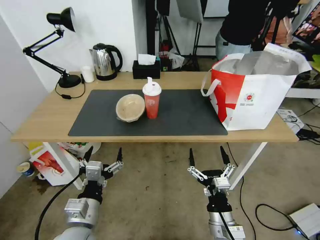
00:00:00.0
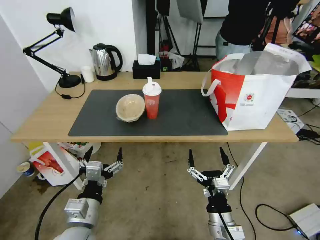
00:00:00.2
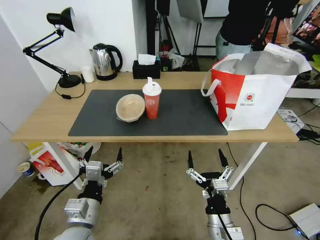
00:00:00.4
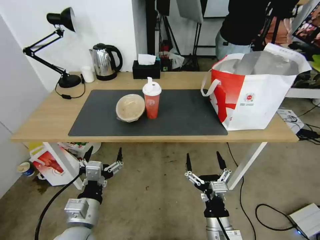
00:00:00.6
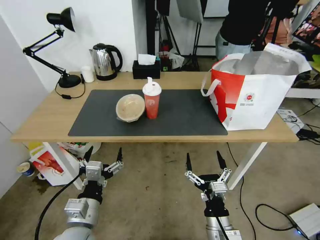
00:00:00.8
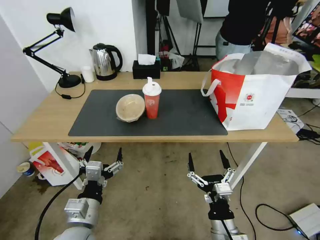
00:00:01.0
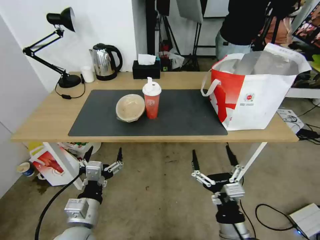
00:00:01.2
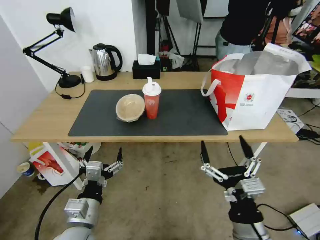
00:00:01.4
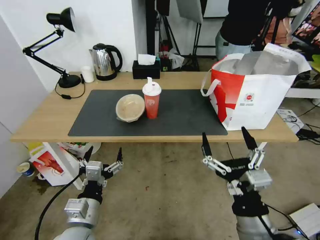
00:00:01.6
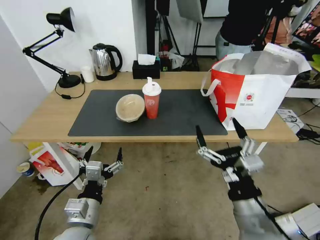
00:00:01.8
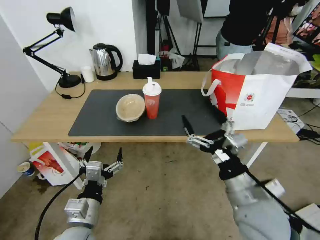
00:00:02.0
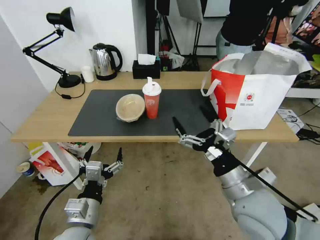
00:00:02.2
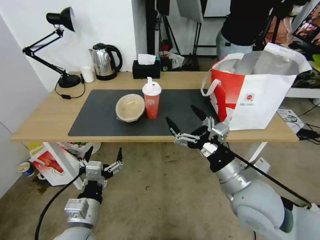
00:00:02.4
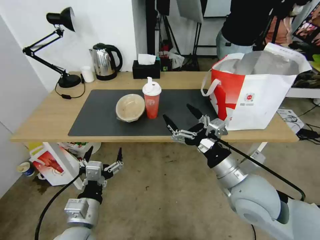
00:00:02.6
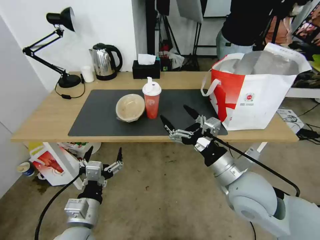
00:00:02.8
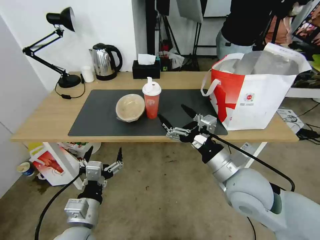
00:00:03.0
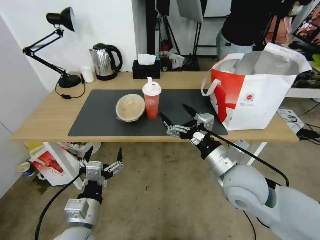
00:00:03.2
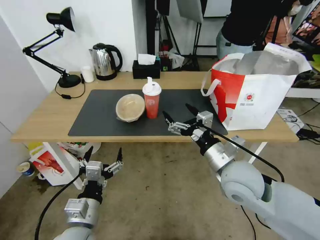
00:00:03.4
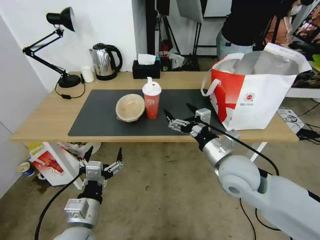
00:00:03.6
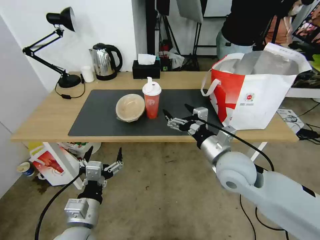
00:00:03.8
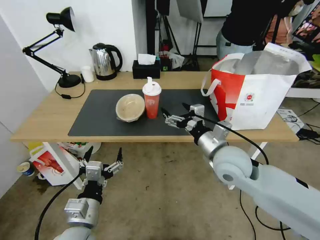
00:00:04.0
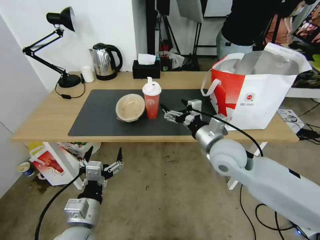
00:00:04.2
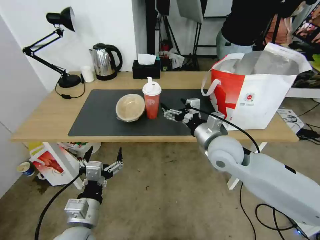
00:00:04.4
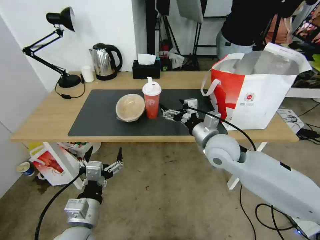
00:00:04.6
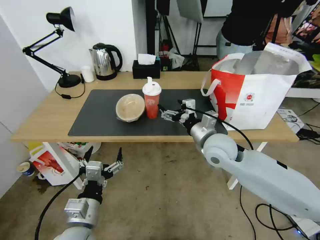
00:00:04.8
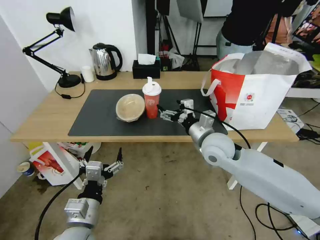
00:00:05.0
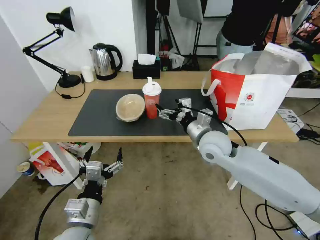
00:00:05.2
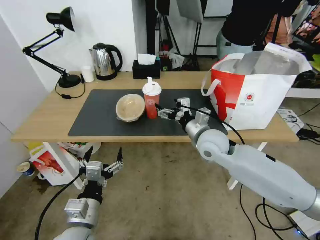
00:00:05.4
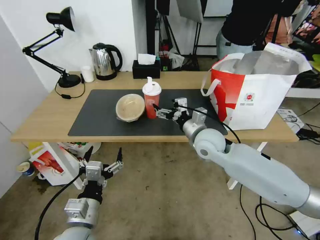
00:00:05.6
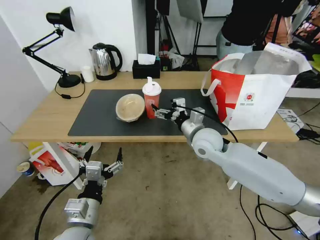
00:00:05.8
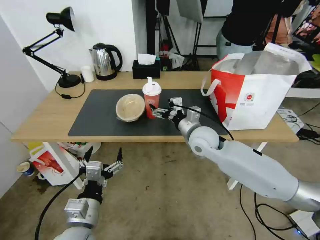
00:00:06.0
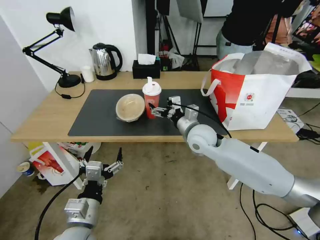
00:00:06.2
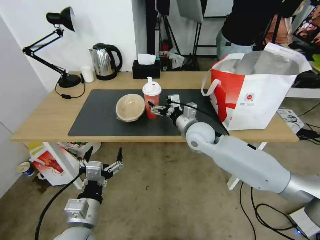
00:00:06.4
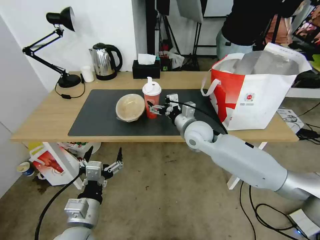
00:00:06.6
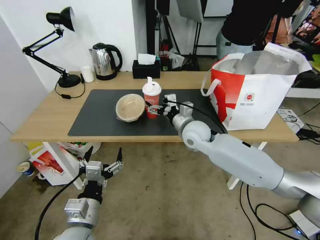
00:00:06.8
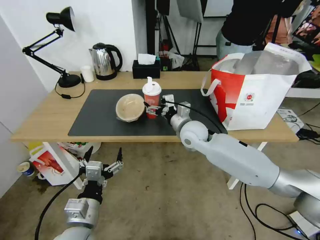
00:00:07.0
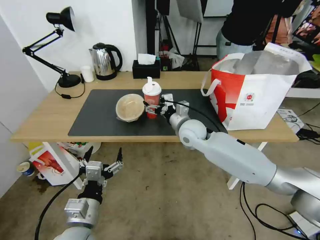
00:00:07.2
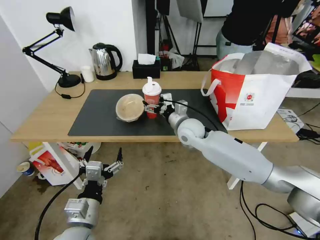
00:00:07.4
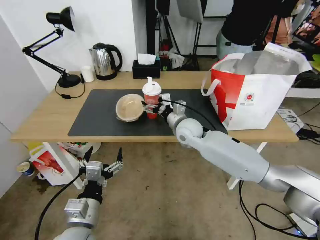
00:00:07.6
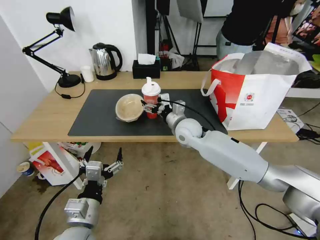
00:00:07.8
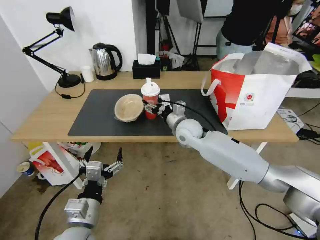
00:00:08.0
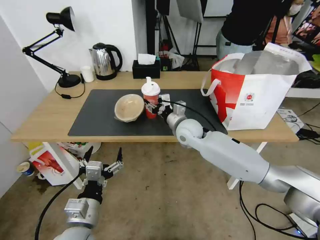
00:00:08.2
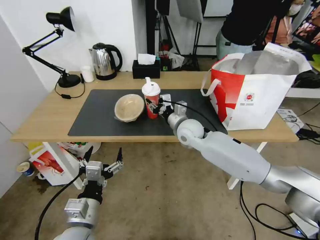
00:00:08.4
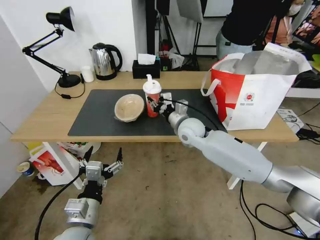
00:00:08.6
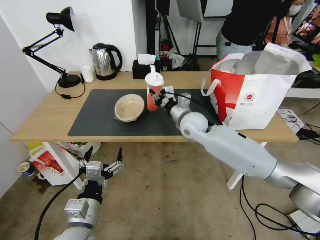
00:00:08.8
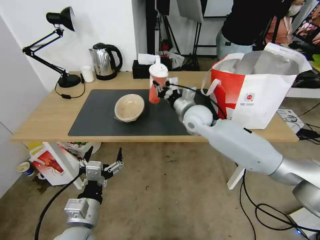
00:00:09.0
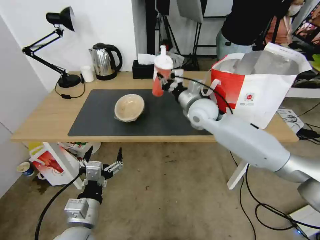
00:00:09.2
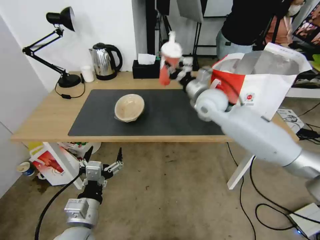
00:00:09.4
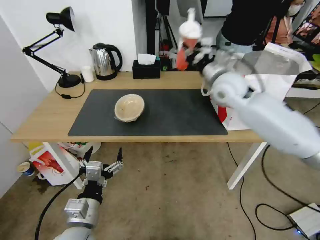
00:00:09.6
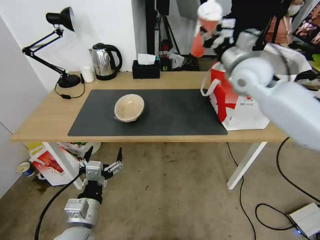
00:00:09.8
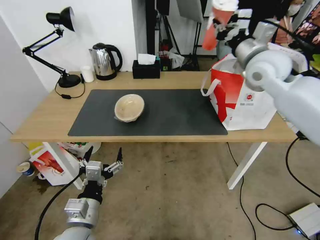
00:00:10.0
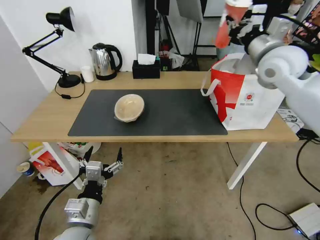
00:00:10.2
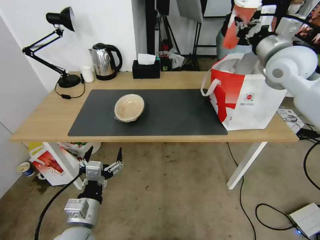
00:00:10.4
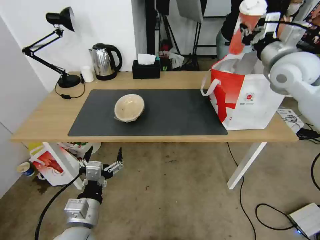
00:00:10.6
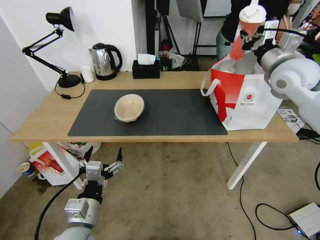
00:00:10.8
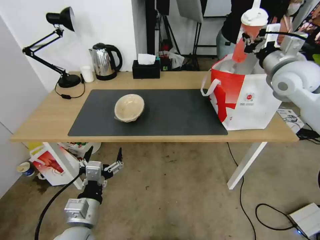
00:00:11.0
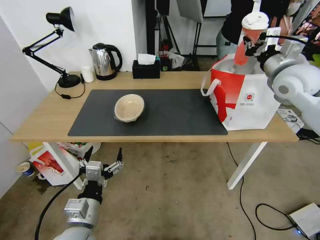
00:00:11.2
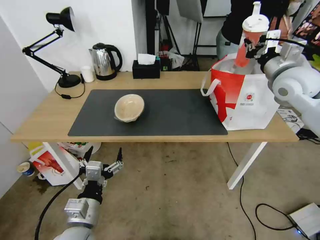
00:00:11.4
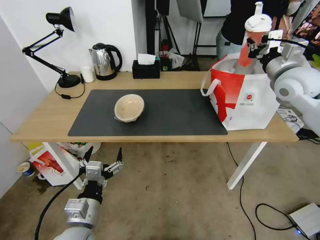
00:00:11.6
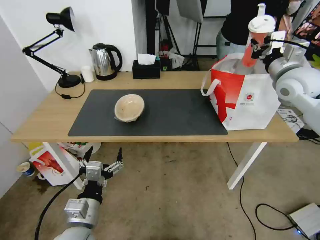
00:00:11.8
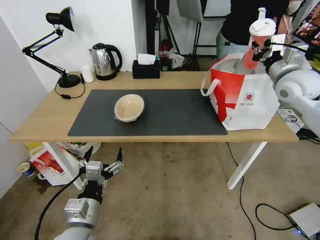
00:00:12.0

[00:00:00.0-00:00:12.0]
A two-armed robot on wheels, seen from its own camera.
Task of the whole recording: Pick up the trash from the table and place it into the takeout bag.
00:00:00.0 to 00:00:01.6: The right gripper travels upward by roughly 10 cm.
00:00:01.6 to 00:00:03.0: The right gripper is displaced forward by approximately 15 cm.
00:00:03.0 to 00:00:04.4: The right gripper heads forward, covering about 10 cm.
00:00:04.4 to 00:00:06.0: The right gripper shifts some 5 cm forward.
00:00:06.0 to 00:00:07.6: The right gripper travels forward by about 5 cm.
00:00:07.6 to 00:00:09.0: The right gripper is displaced upward by some 5 cm, and closes its fingers.
00:00:09.0 to 00:00:10.4: The right gripper shifts some 30 cm upward and to the right.
00:00:10.4 to 00:00:12.0: The right gripper shifts approximately 10 cm downward and to the right.

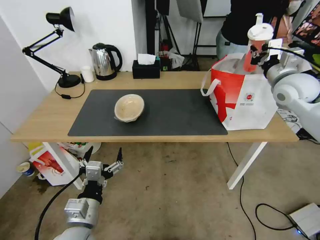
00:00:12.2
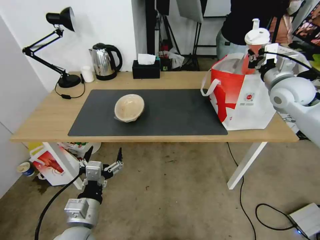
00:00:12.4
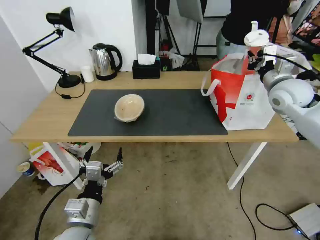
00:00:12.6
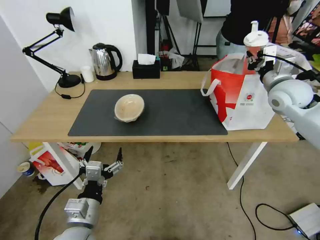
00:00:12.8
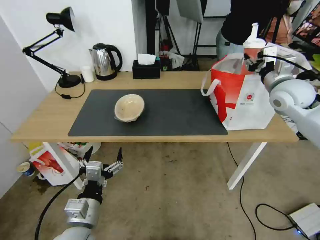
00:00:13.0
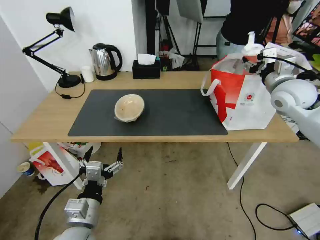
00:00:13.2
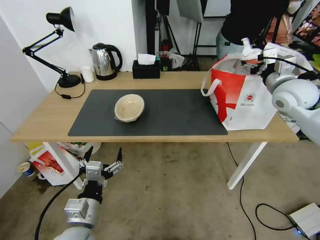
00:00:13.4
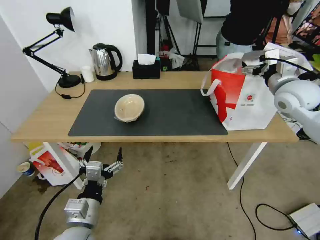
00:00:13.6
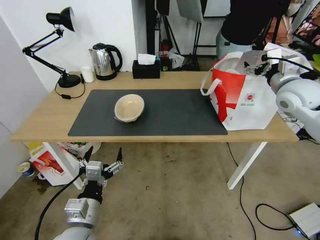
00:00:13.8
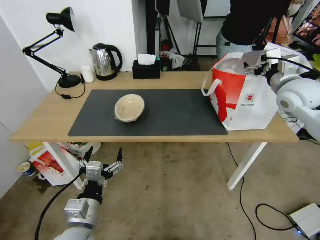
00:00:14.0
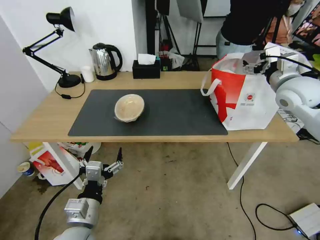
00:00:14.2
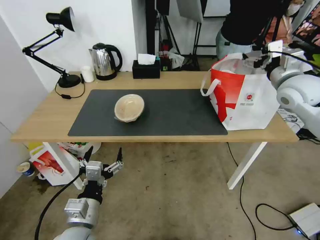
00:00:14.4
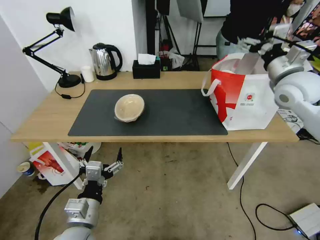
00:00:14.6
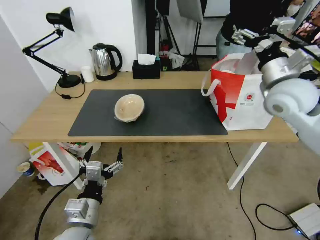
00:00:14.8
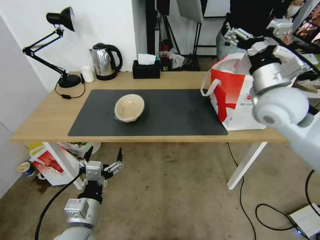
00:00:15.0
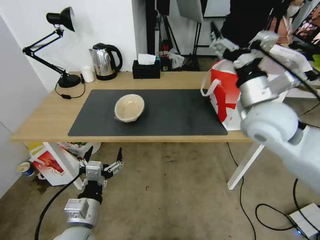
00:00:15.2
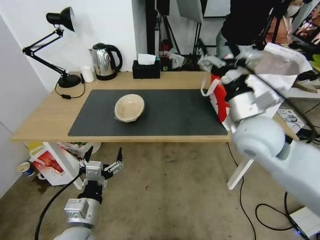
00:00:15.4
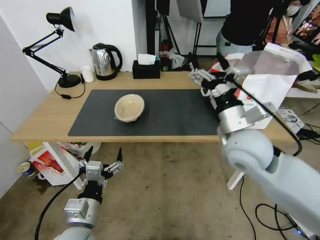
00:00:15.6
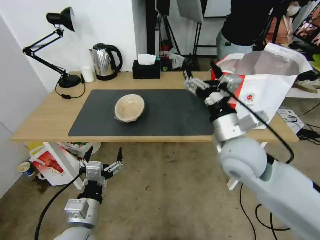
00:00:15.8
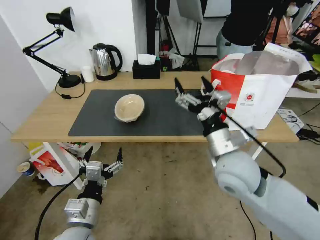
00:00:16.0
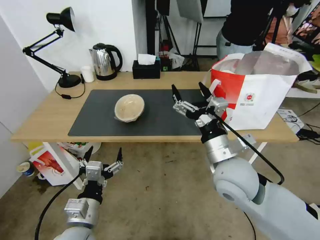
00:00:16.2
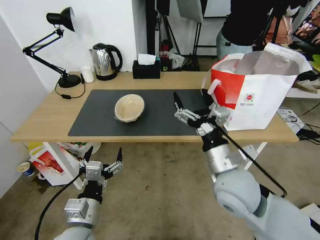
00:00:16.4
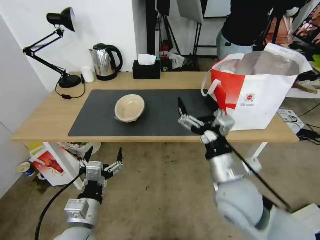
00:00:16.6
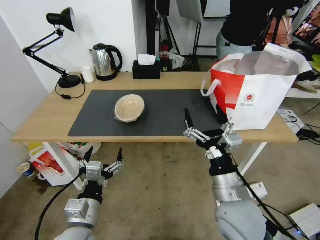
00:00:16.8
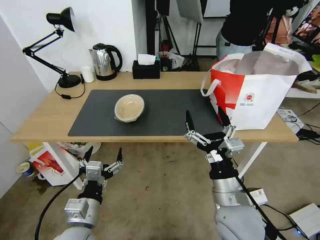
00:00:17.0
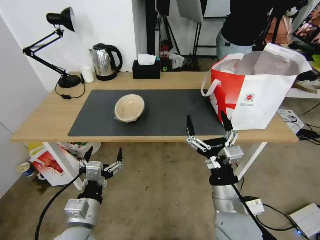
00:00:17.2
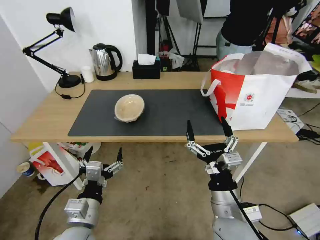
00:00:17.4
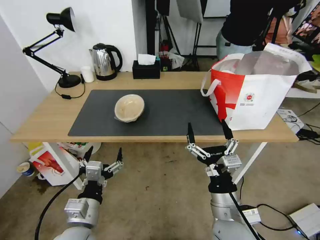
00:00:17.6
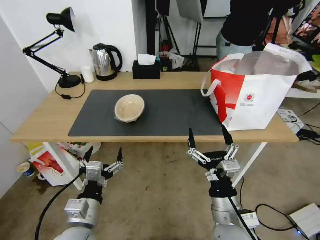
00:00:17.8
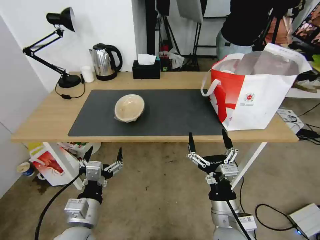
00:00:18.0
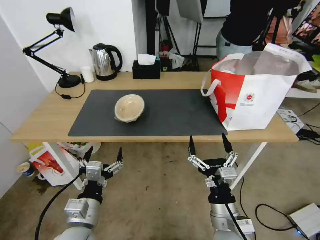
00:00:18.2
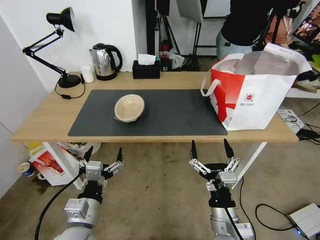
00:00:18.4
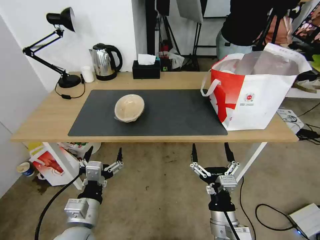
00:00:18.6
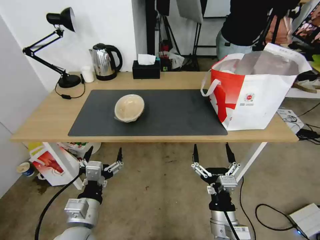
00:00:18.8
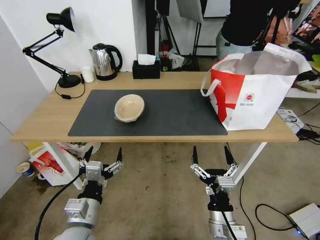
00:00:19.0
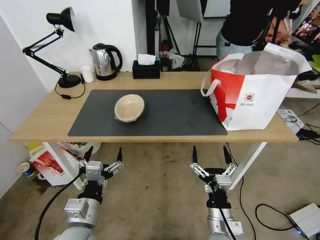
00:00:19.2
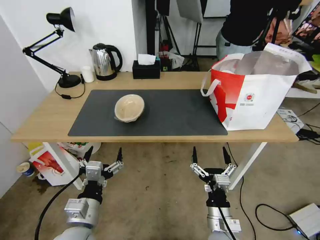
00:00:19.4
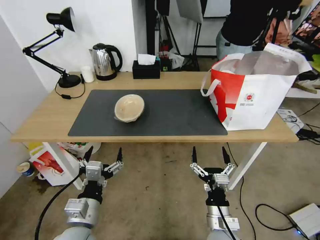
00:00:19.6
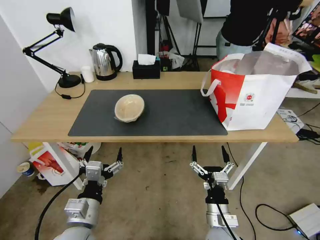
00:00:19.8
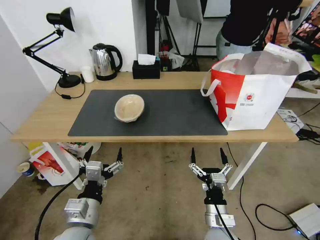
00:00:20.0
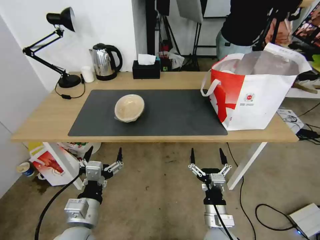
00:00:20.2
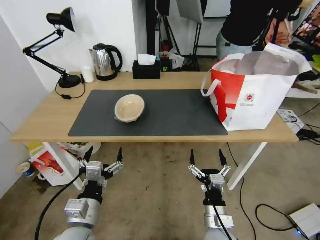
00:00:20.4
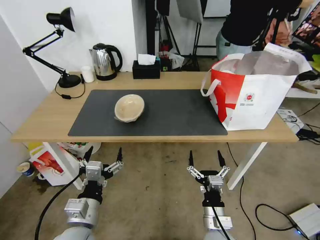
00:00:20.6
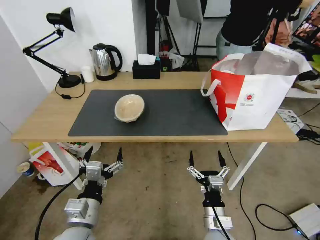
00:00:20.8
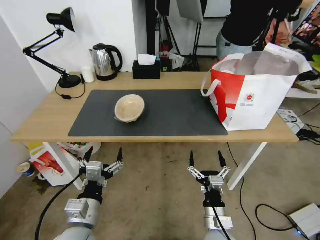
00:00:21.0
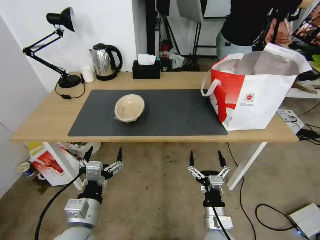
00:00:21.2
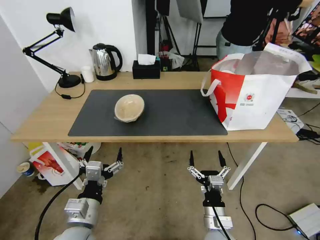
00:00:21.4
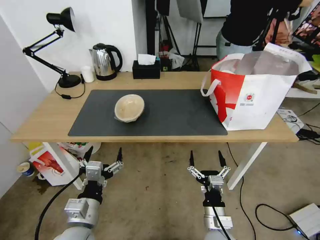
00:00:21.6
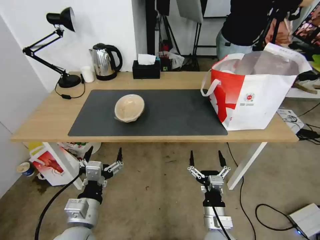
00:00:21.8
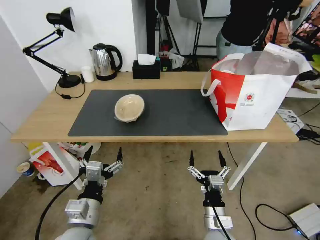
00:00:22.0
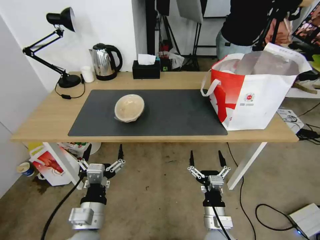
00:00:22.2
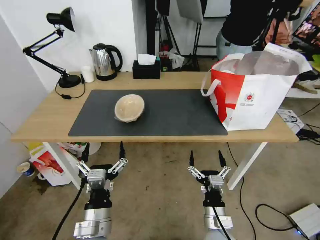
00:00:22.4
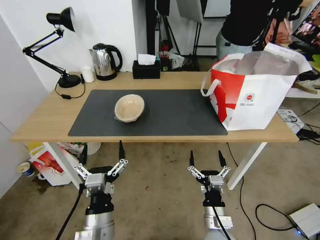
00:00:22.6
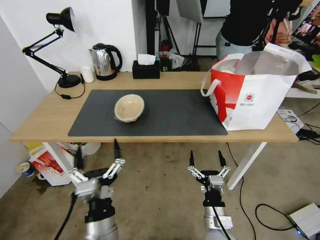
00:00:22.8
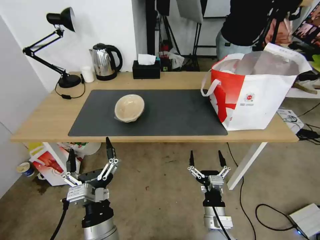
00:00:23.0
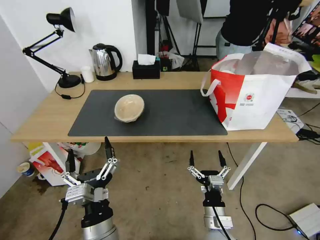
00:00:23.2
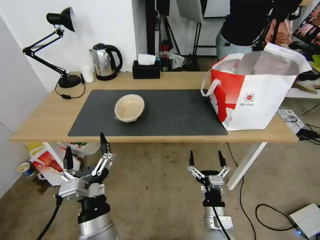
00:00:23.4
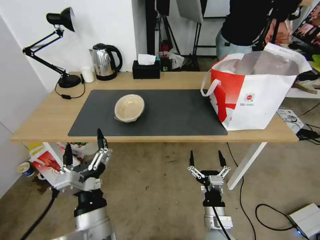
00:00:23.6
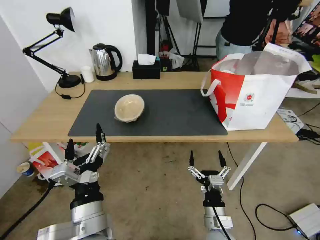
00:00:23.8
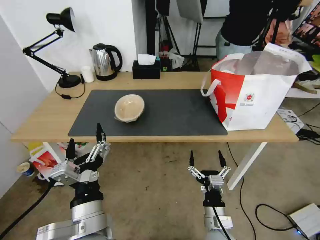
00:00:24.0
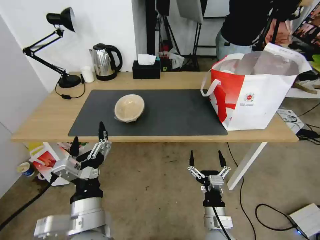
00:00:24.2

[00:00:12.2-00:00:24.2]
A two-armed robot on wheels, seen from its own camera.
Task of the whole recording: Pick up the trash from the table and place it into the takeout bag.
00:00:12.2 to 00:00:13.8: The right gripper opens its fingers.
00:00:13.8 to 00:00:15.2: The right gripper travels to the left and backward by approximately 20 cm.
00:00:15.2 to 00:00:16.6: The right gripper travels downward, backward and to the left by about 20 cm.
00:00:16.6 to 00:00:18.2: The right gripper is displaced downward and backward by some 15 cm.
00:00:18.2 to 00:00:19.8: The right gripper goes about 5 cm downward.
00:00:19.8 to 00:00:21.2: The grippers move only a little.
00:00:21.2 to 00:00:22.6: The left gripper is displaced to the right by approximately 5 cm.
00:00:22.6 to 00:00:24.2: The left gripper moves upward, roughly 10 cm.
